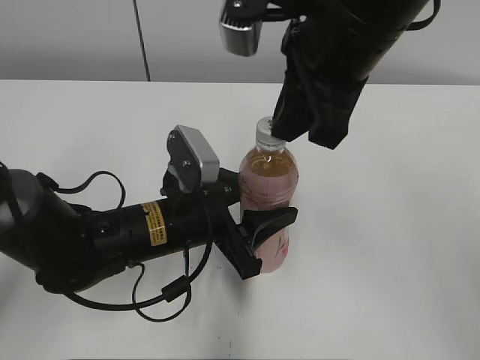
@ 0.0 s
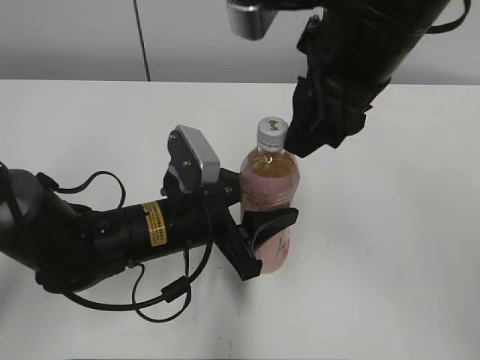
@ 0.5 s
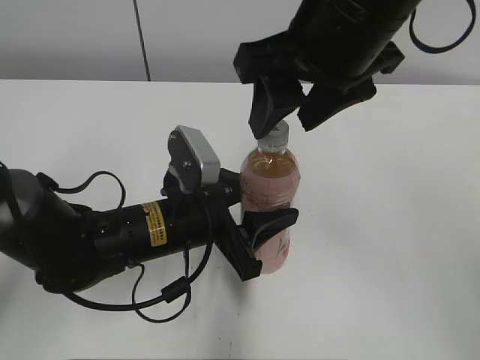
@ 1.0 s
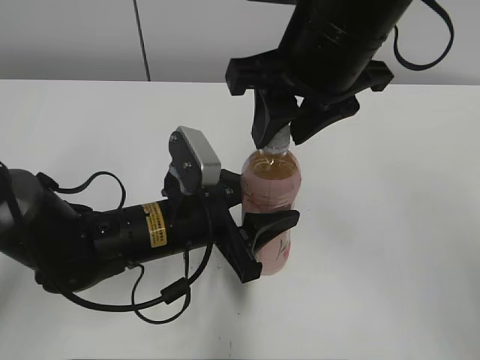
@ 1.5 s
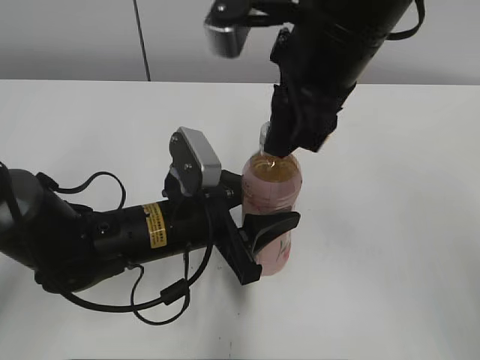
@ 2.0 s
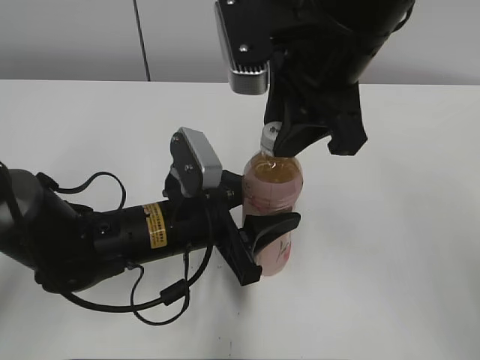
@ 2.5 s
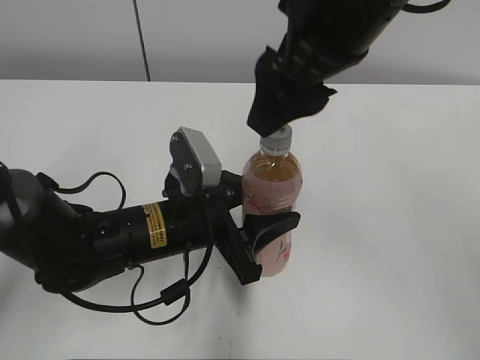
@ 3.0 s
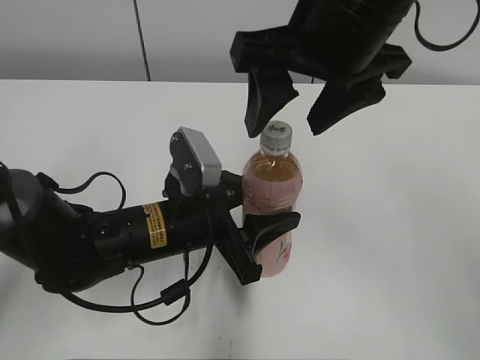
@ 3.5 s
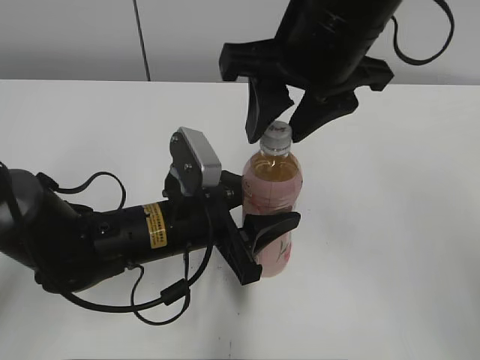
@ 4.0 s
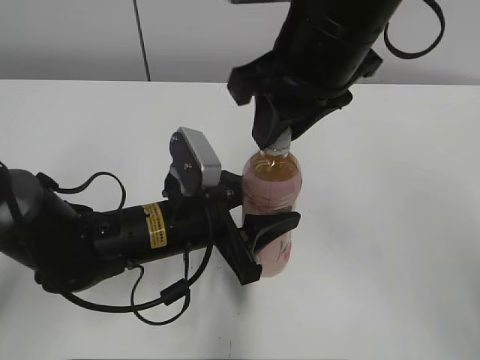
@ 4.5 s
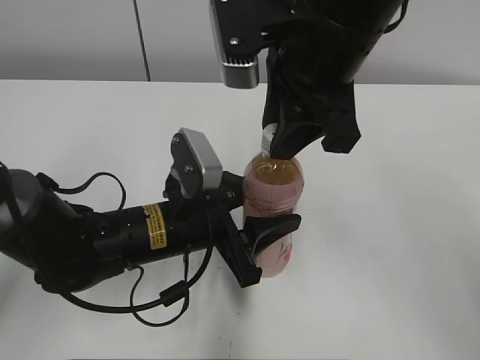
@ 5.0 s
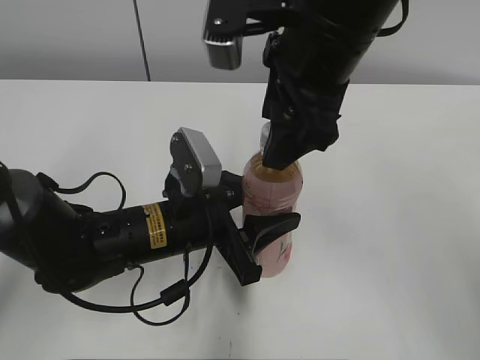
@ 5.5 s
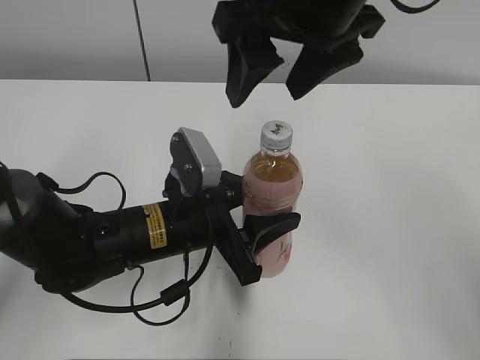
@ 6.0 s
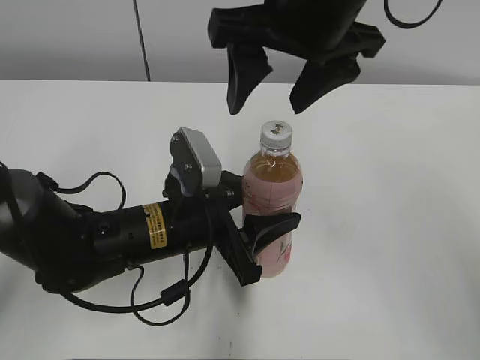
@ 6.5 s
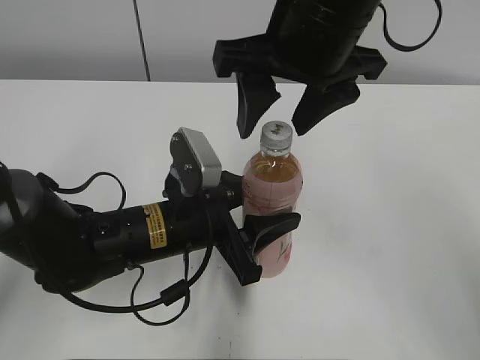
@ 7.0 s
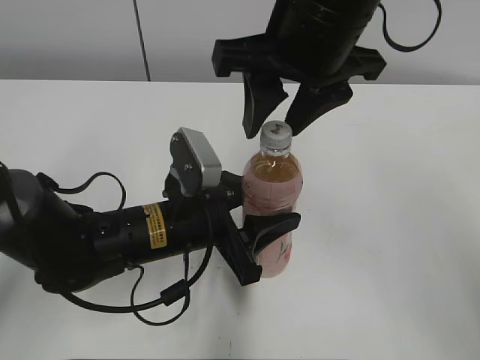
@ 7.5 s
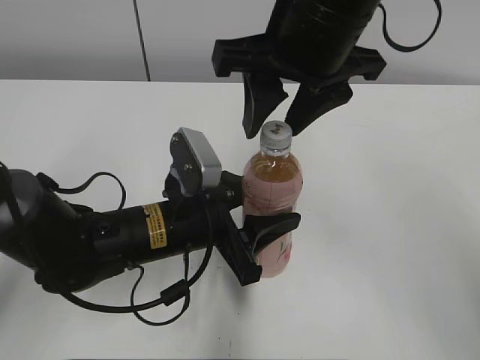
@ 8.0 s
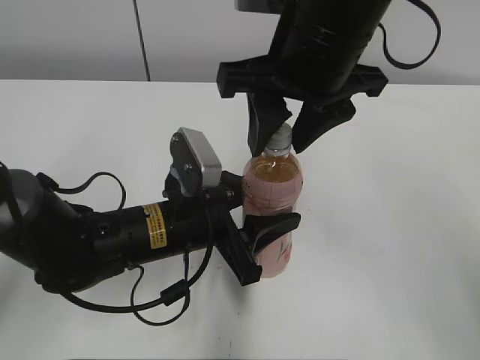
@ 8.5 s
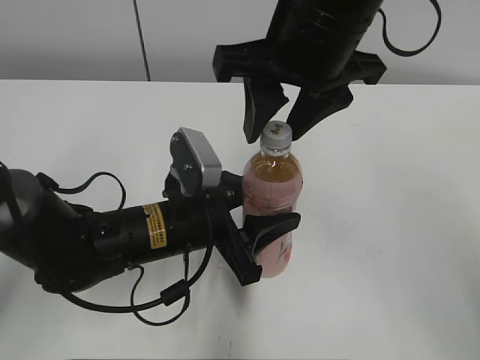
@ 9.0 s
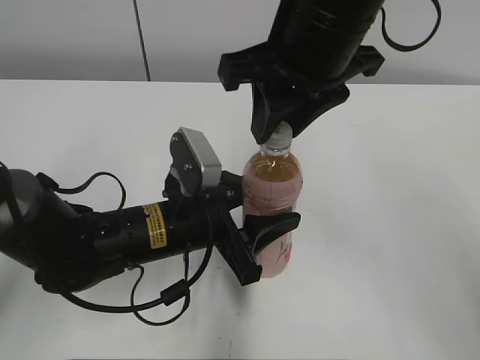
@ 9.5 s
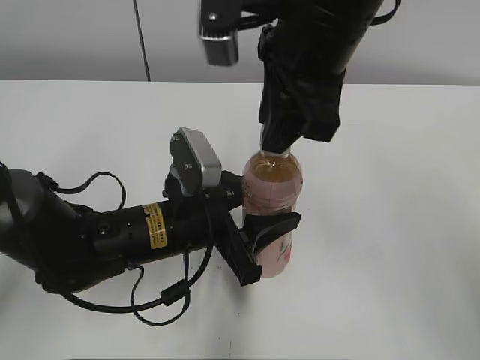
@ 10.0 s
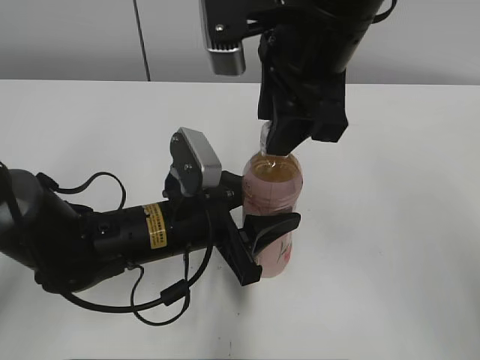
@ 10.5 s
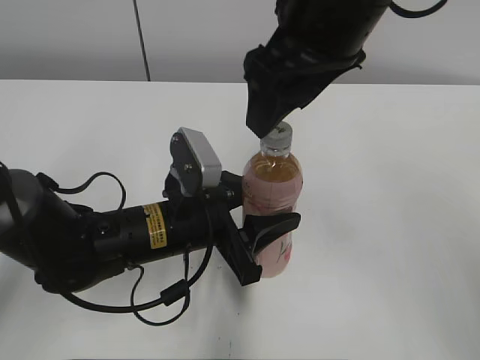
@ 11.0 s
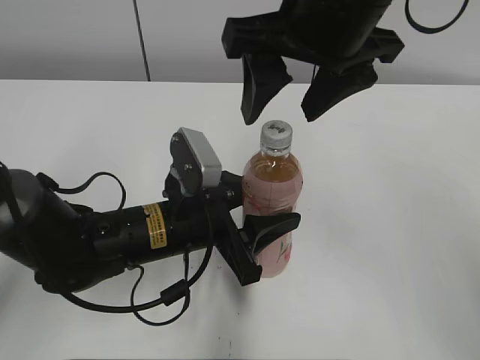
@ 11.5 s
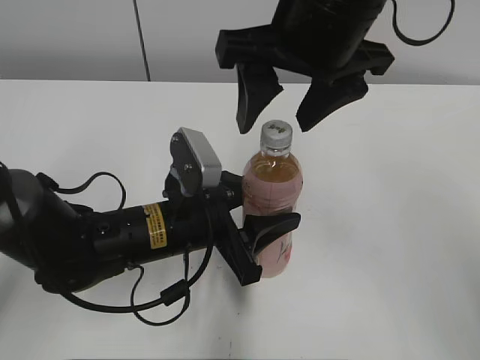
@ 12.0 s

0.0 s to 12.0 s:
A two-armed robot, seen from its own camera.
0.0 to 2.0 s: The right gripper opens, then closes again.
2.0 to 4.0 s: The right gripper opens its fingers.
4.0 to 6.0 s: The right gripper opens its fingers.
6.0 to 8.0 s: The right gripper closes up.
8.0 to 10.0 s: The right gripper closes its fingers.
10.0 to 12.0 s: The right gripper opens its fingers.

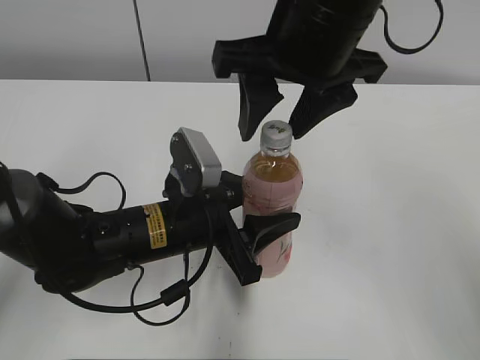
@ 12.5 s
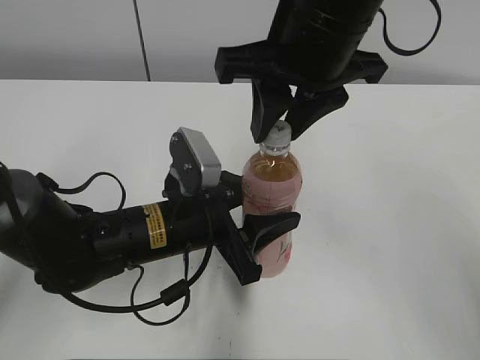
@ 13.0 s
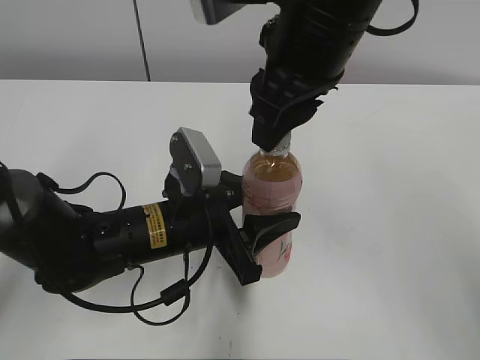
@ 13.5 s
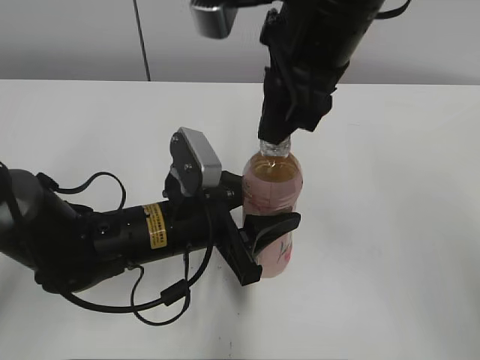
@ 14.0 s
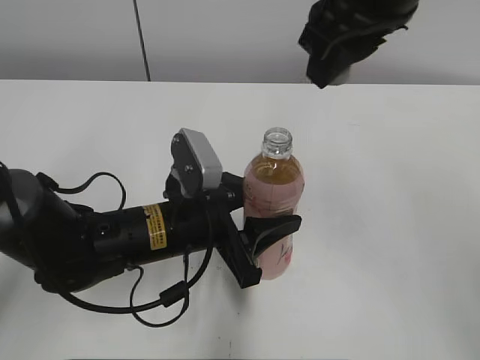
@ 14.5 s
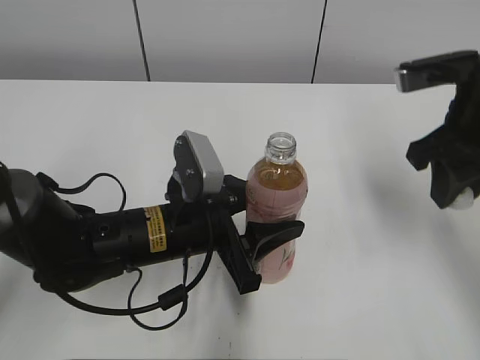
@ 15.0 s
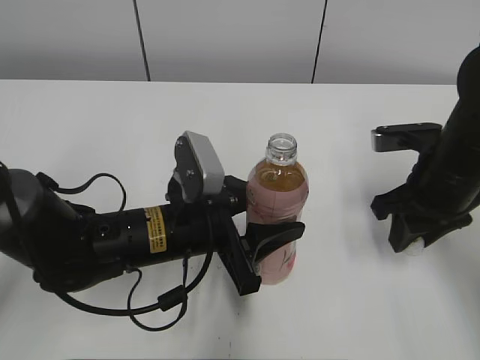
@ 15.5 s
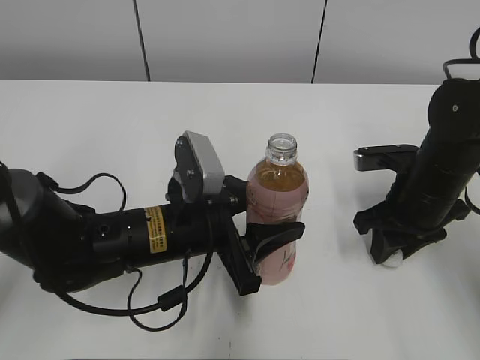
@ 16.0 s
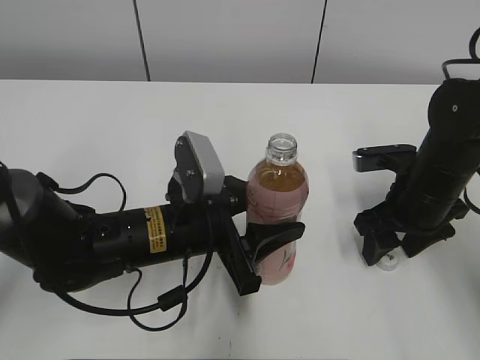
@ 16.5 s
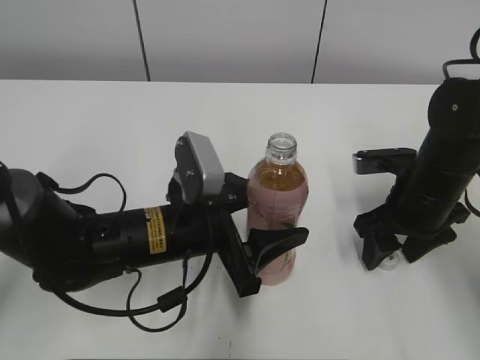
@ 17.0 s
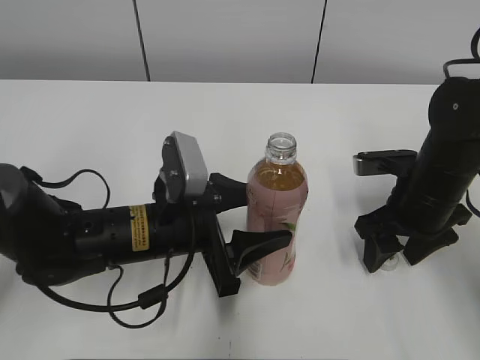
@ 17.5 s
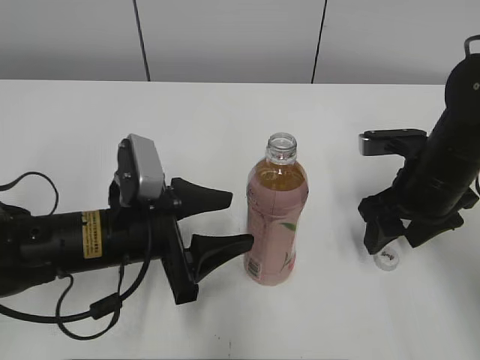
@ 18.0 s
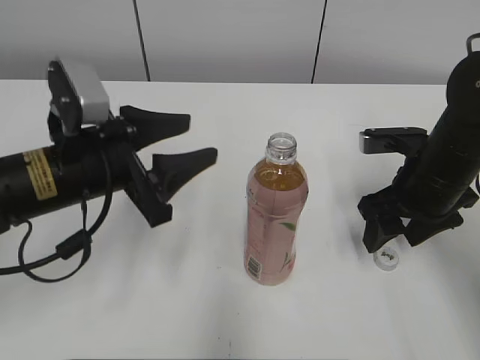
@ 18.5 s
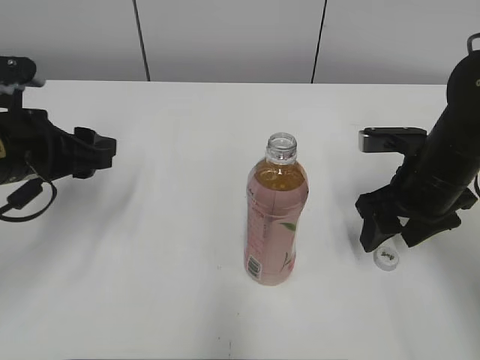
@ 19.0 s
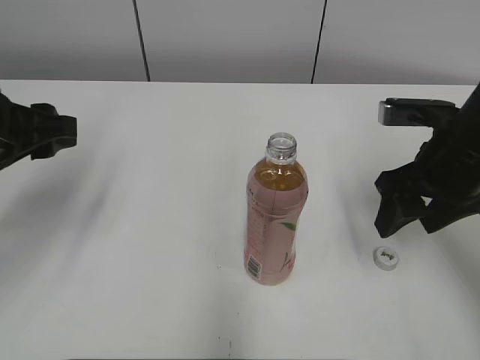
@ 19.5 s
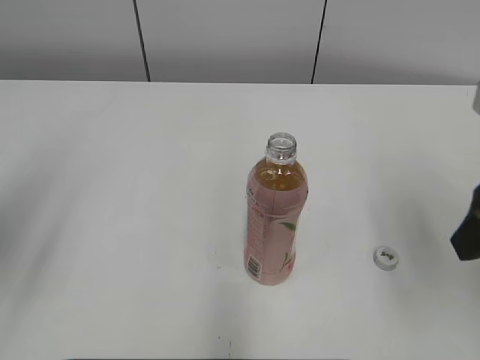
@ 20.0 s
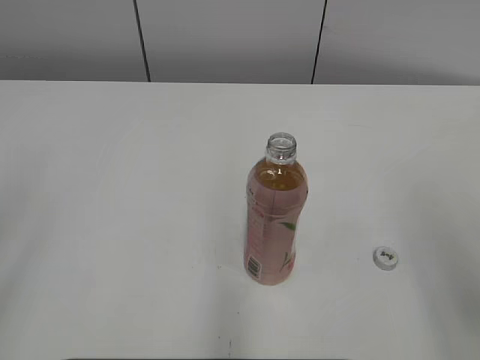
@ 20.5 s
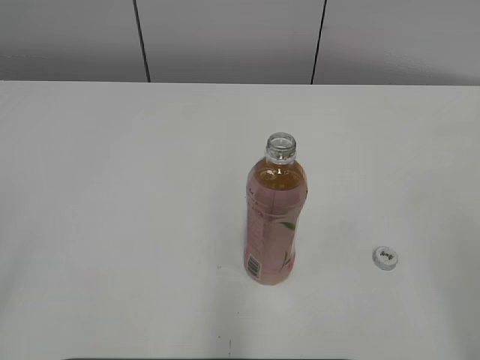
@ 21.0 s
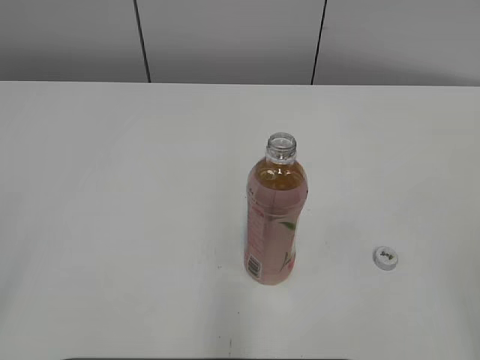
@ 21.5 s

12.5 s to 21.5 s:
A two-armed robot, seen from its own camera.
Step, 14.0 to 16.0 s: Place the bottle cap on the right.
12.5 to 14.5 s: The right gripper ends up roughly 5 cm from where it was, and closes its fingers.
14.5 to 17.0 s: The right gripper goes about 25 cm downward and to the right, and opens its fingers.
17.0 to 19.5 s: The left gripper is displaced to the left and upward by roughly 20 cm. Meanwhile the right gripper goes some 10 cm upward.
19.5 to 21.5 s: The two grippers go some 30 cm backward.

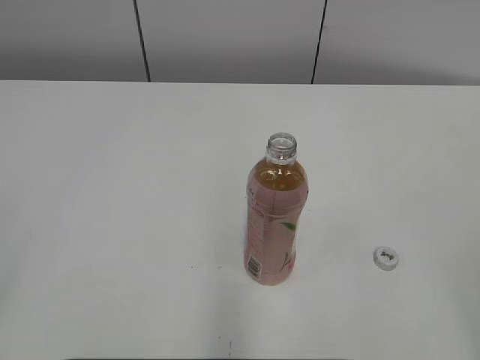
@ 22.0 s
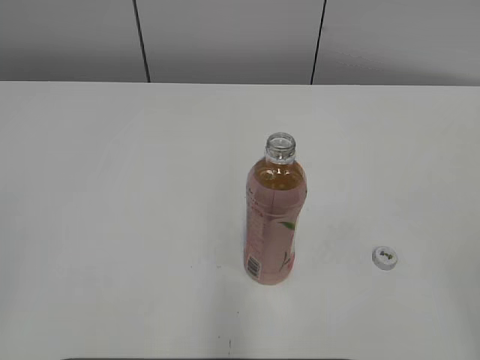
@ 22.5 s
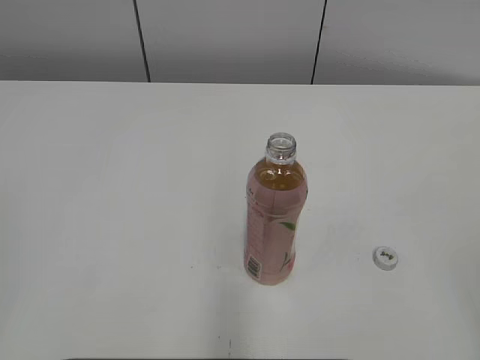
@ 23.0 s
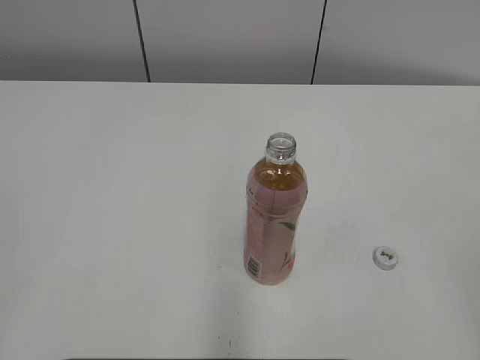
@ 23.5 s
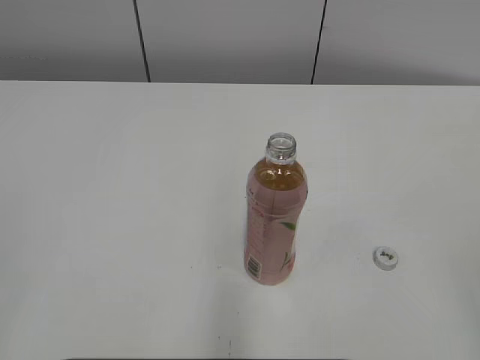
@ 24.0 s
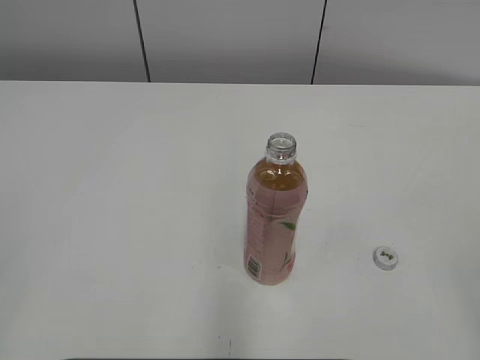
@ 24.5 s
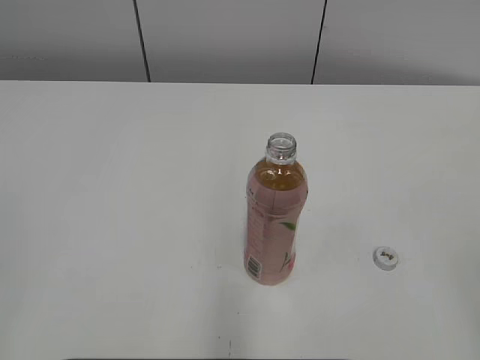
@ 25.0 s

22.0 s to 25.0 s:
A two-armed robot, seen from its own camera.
23.5 to 25.0 s: Both grippers stay about where they are.
